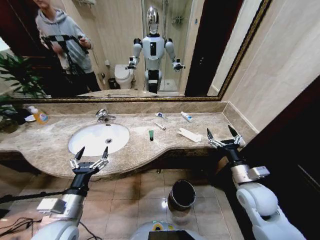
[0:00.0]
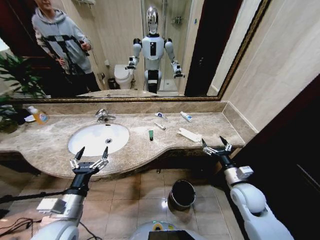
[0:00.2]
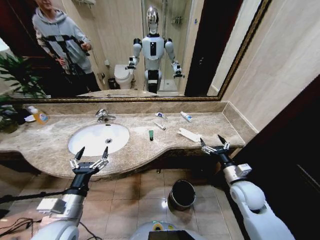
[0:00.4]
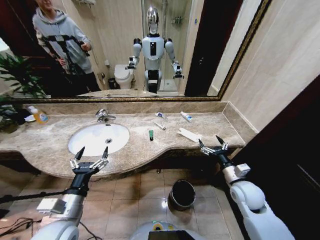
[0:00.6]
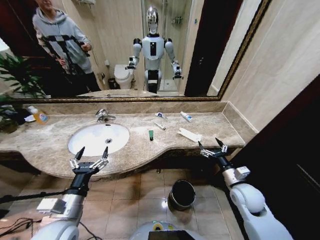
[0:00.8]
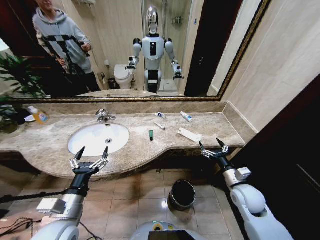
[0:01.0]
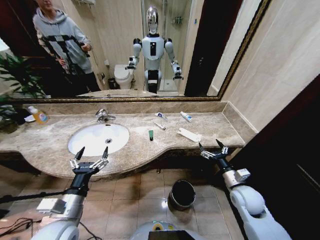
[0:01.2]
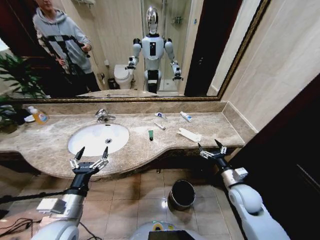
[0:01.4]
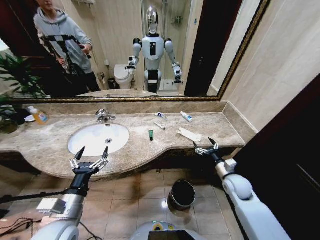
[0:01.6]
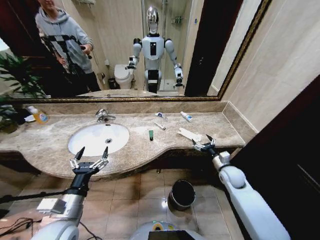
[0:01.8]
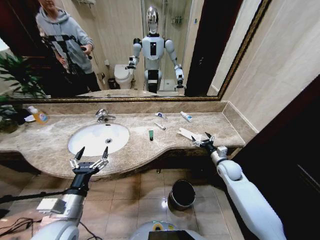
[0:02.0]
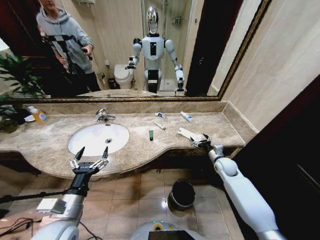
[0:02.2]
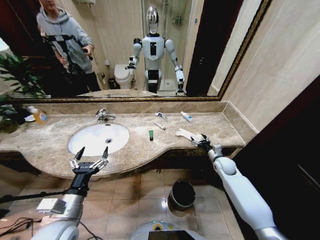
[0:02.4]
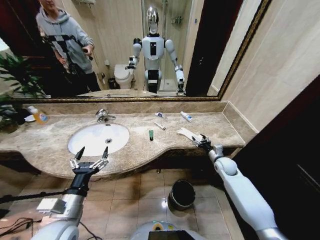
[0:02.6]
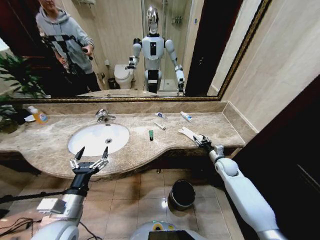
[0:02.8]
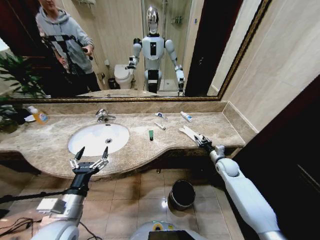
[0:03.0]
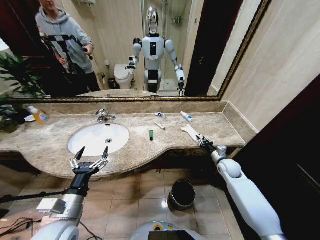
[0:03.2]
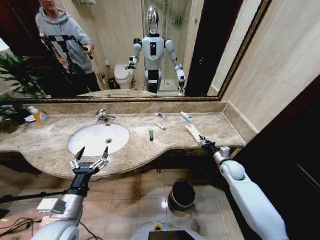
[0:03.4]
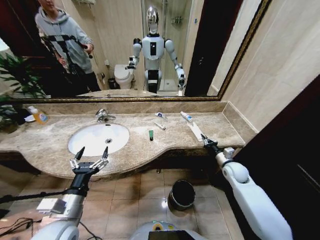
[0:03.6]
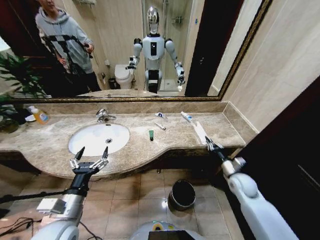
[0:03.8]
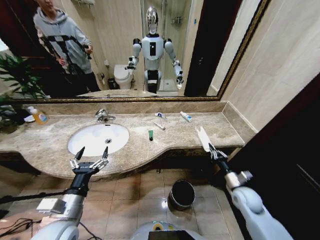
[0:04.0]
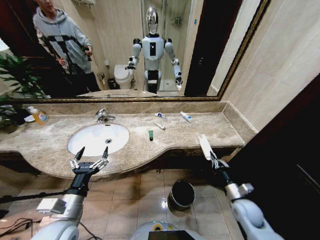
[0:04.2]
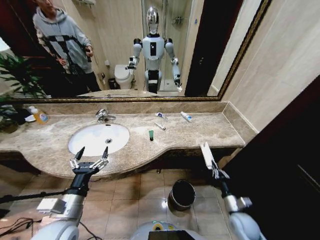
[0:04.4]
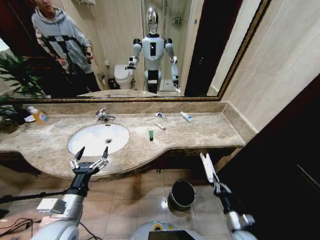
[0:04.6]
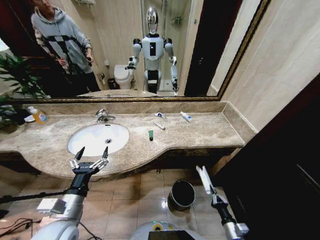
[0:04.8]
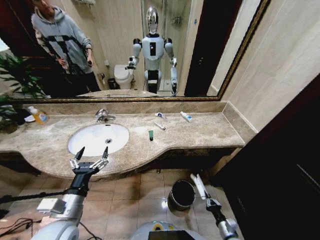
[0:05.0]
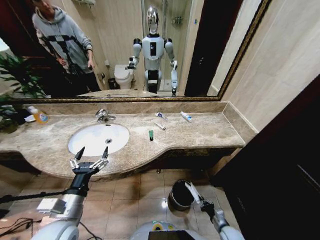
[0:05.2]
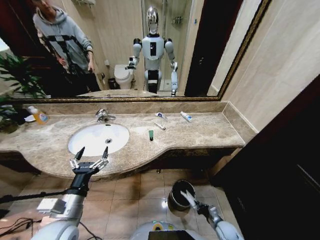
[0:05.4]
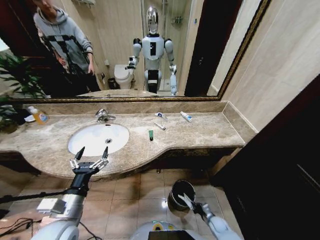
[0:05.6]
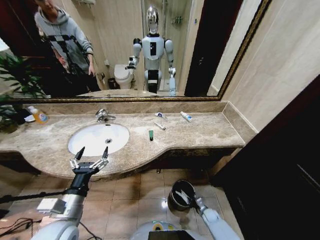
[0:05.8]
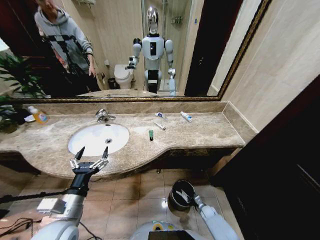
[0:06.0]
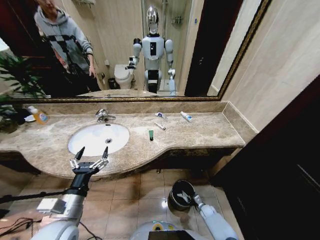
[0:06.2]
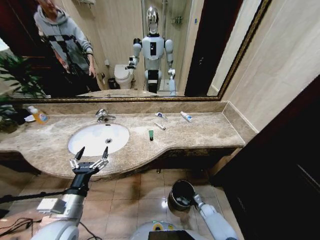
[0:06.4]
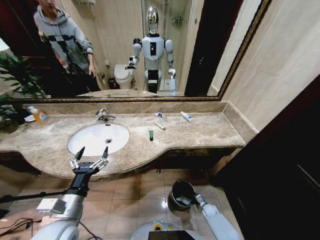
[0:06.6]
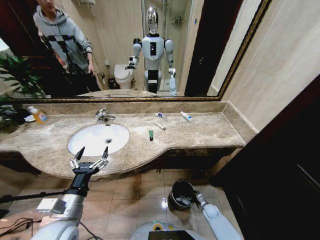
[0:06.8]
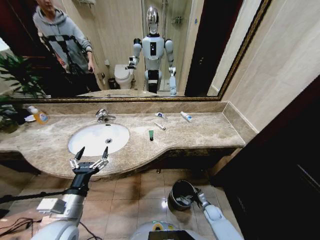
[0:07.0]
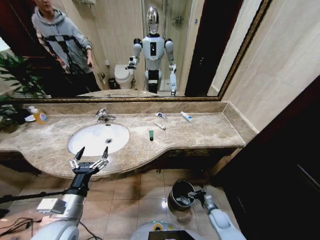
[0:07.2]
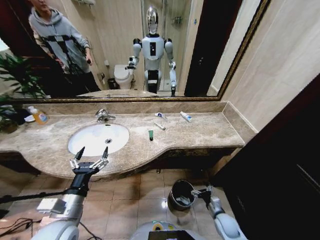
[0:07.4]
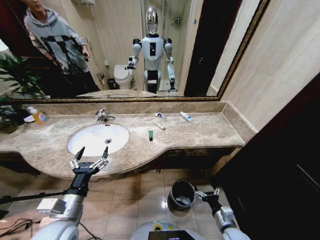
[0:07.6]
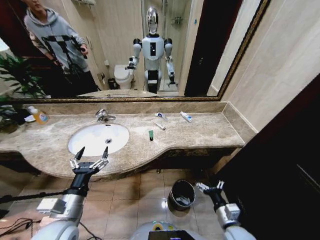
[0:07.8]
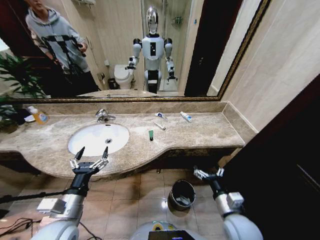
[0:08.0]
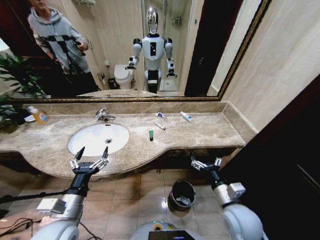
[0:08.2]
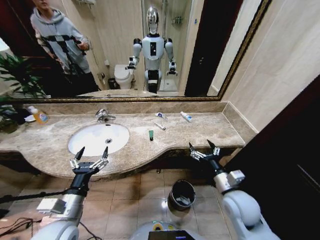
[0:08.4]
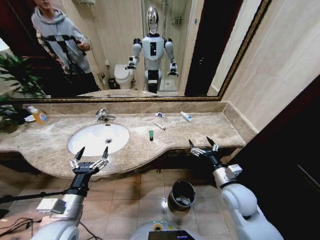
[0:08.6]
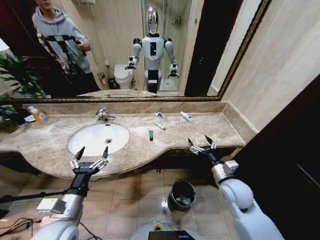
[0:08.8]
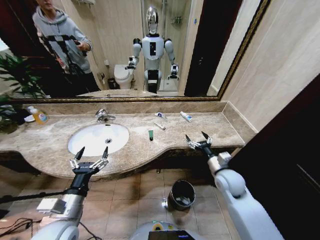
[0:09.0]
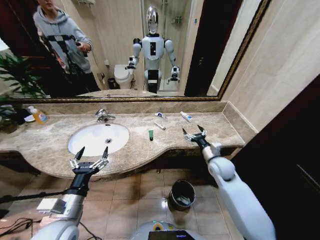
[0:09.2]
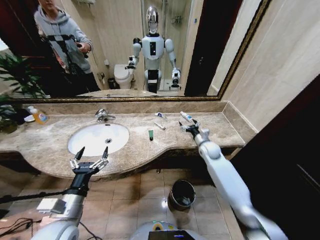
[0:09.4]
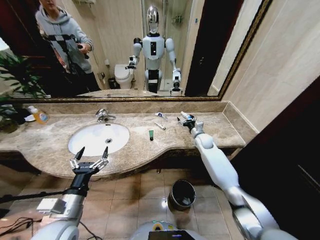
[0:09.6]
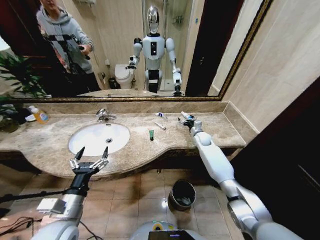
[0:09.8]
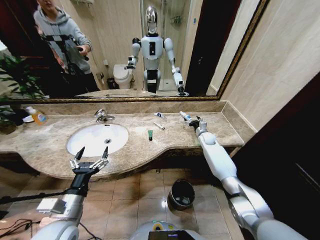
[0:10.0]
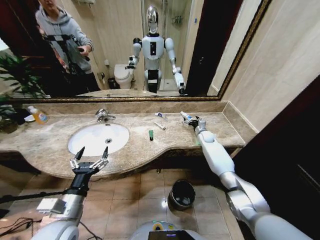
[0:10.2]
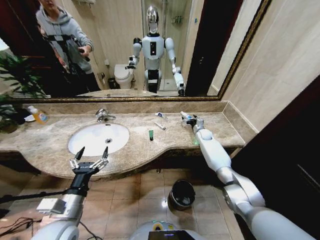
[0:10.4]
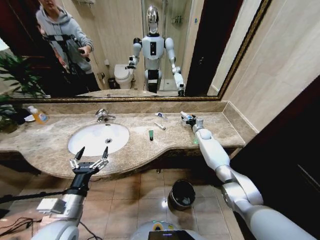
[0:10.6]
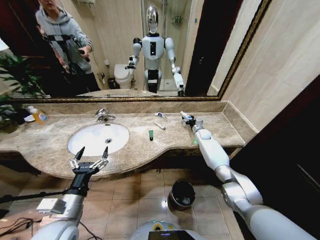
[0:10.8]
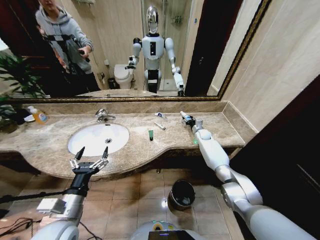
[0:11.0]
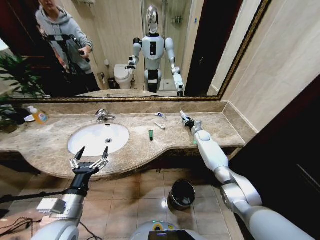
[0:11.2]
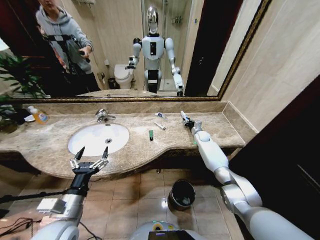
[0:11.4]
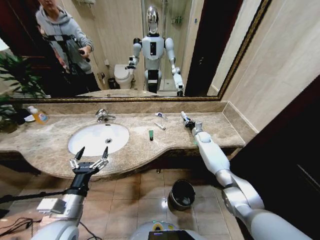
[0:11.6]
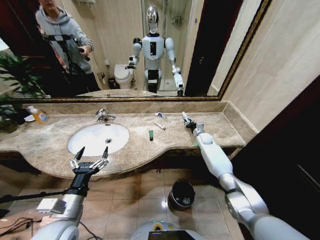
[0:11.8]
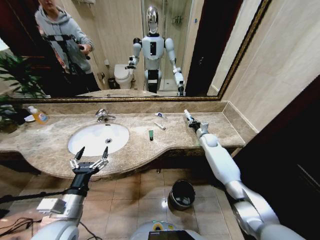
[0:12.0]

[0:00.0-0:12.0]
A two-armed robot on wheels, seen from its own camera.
Task of the whole recording: Pick up the trash from the sink and place it in the trash bin.
0:01.6 to 0:03.0: The right gripper travels forward by about 10 cm, and closes.
0:03.0 to 0:04.4: The right gripper goes approximately 20 cm backward, and closes its fingers.
0:04.4 to 0:06.0: The right gripper goes some 25 cm downward.
0:06.0 to 0:07.6: The right gripper goes about 25 cm upward and backward, and opens up.
0:07.6 to 0:09.0: The right gripper heads upward and forward, covering approximately 25 cm.
0:09.0 to 0:10.4: The right gripper shifts roughly 30 cm forward.
0:10.4 to 0:12.0: The right gripper shifts roughly 5 cm backward, and closes up.

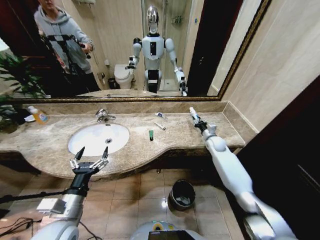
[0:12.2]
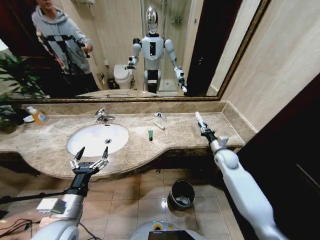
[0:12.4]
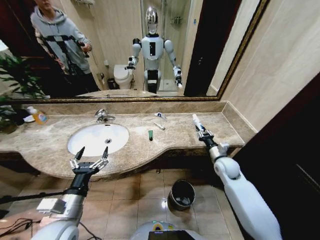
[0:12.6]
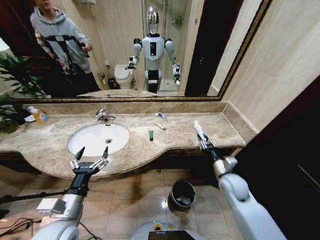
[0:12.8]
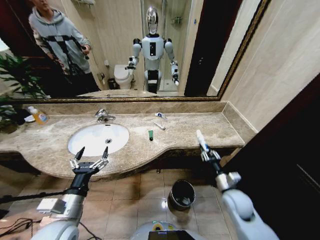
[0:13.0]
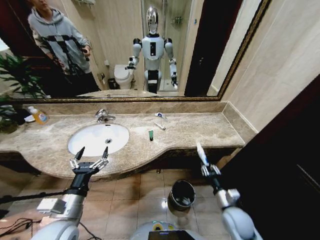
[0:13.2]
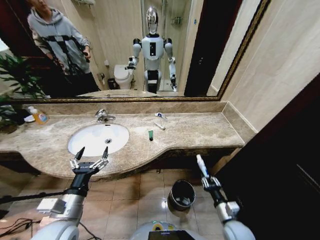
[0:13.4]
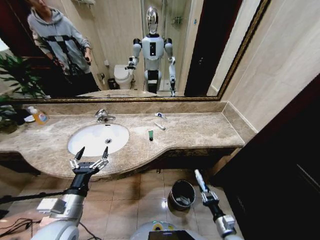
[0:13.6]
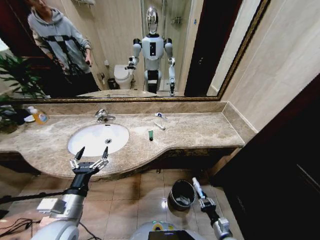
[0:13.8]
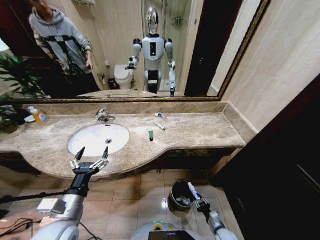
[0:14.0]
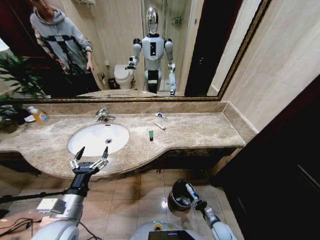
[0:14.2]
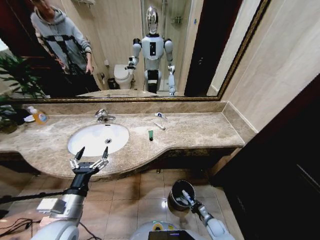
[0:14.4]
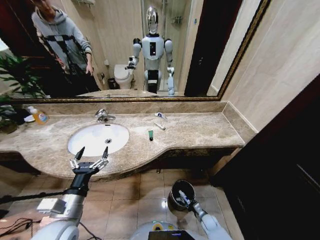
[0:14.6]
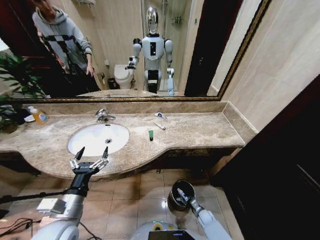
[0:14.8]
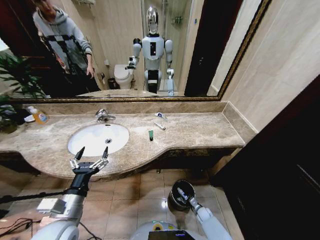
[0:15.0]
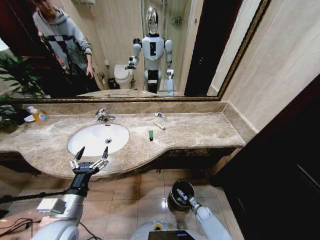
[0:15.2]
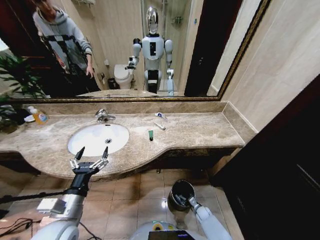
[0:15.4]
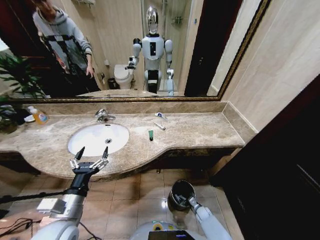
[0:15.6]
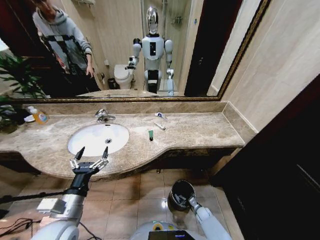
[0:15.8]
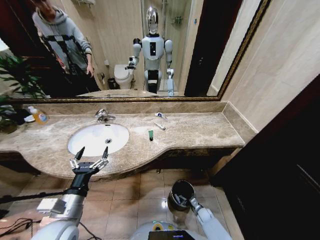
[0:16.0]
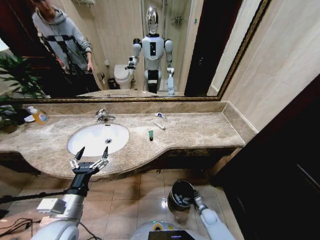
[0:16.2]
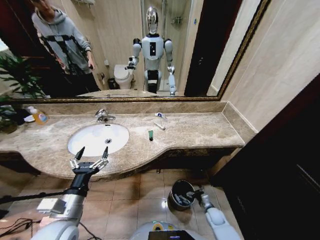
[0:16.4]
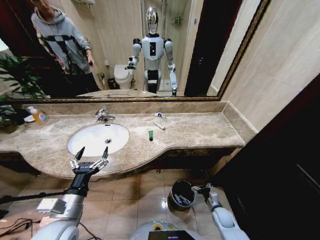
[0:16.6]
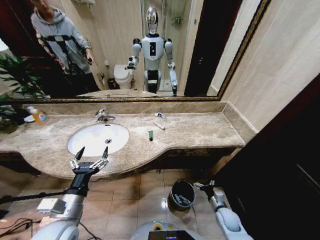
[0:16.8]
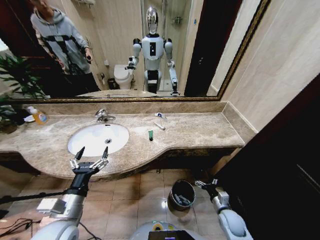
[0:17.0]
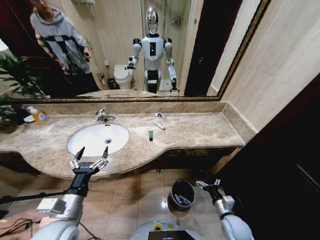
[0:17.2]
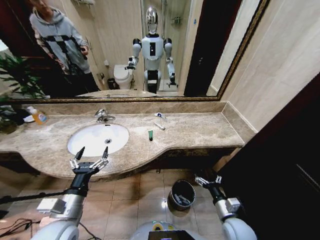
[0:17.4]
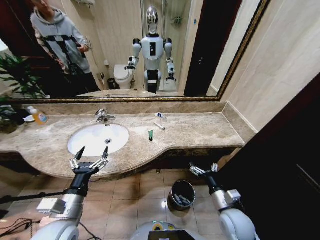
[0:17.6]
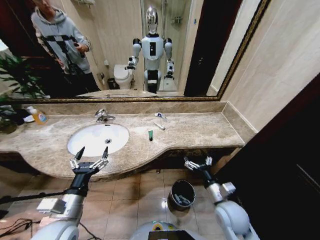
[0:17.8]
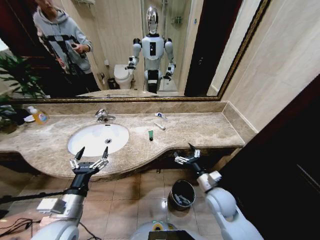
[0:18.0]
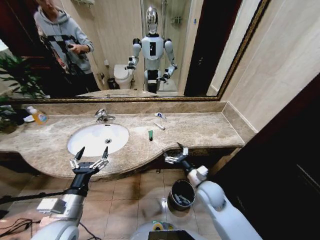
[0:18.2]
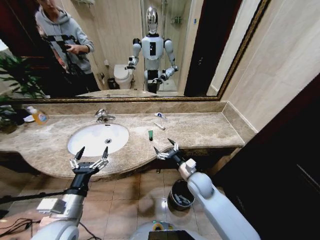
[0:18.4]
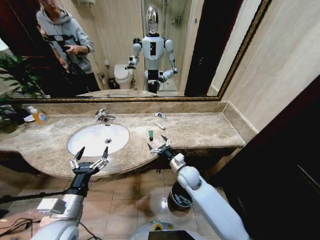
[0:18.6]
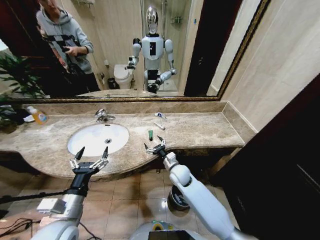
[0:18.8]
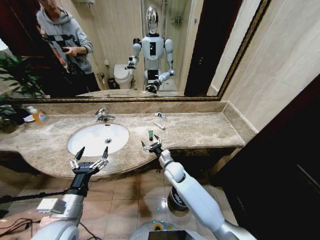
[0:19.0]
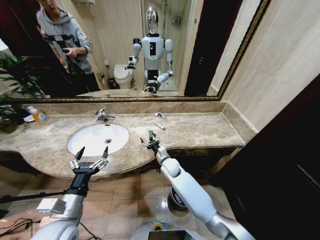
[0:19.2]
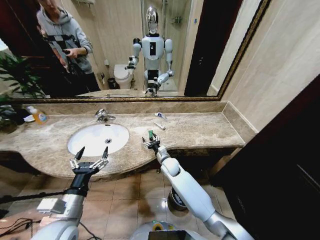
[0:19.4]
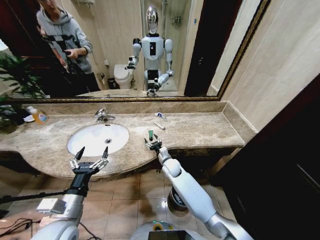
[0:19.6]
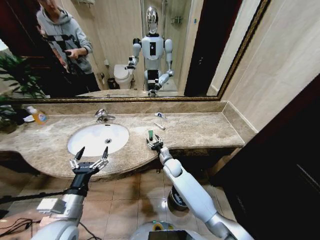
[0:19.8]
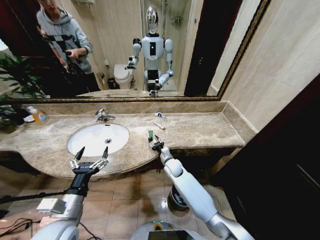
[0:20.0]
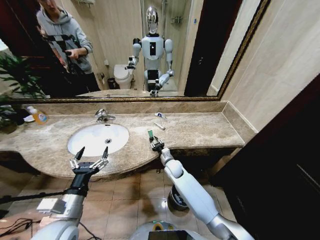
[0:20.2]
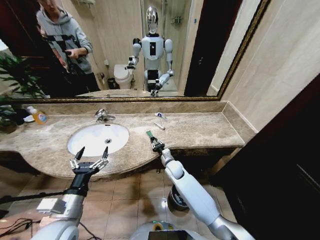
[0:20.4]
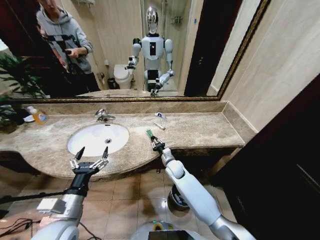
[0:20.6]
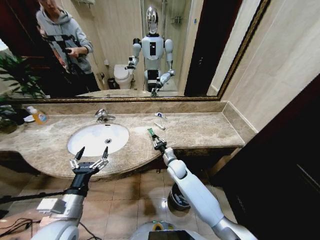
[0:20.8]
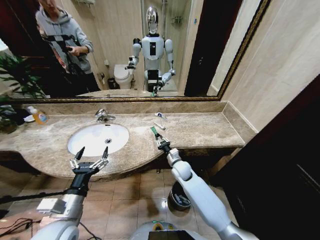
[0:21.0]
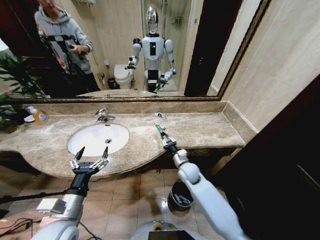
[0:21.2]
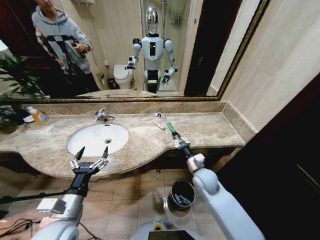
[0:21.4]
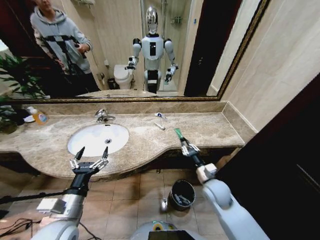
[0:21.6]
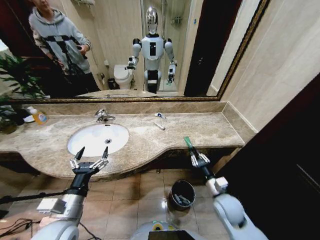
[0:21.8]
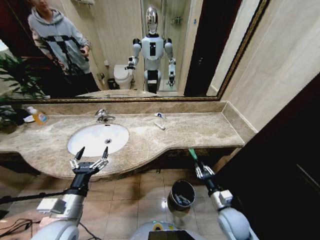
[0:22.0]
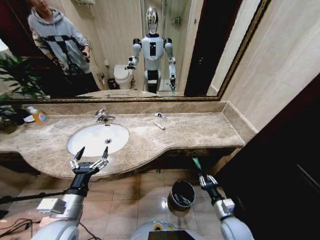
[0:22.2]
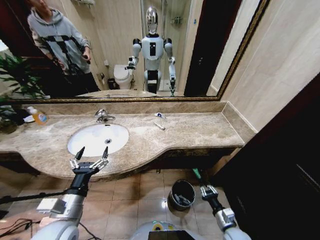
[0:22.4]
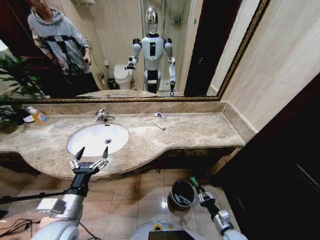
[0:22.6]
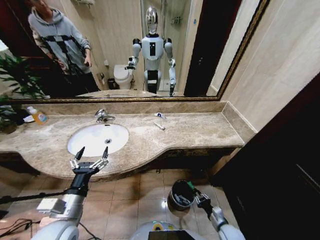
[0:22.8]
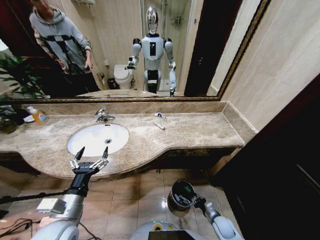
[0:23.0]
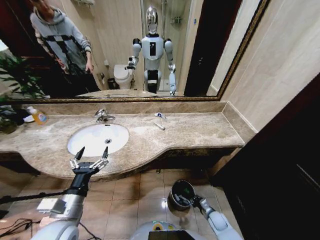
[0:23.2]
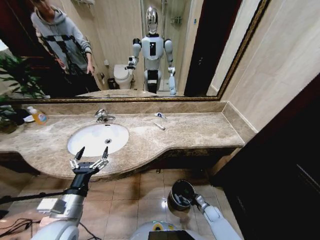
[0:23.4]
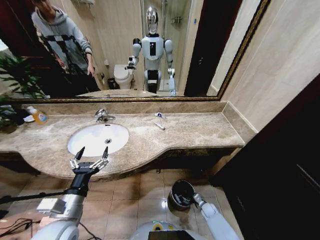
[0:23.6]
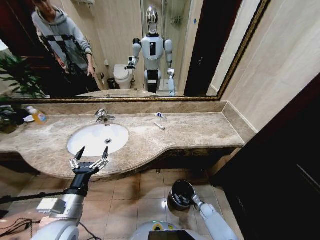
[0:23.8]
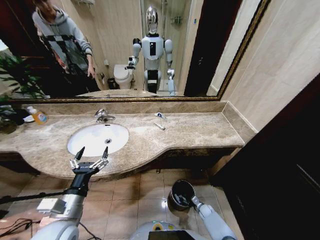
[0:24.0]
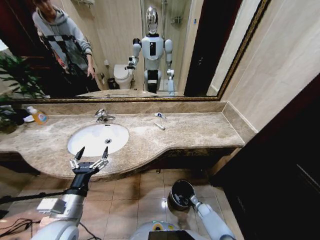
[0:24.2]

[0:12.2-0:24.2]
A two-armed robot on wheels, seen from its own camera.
Task of the whole recording: Pick up the trash from the sink and place it in the trash bin.
0:12.2 to 0:13.8: The right gripper heads backward and downward, covering roughly 50 cm.
0:13.8 to 0:15.2: The right gripper travels forward and downward by some 20 cm.
0:15.2 to 0:16.6: The right gripper is displaced upward by roughly 15 cm, and opens its fingers.
0:16.6 to 0:18.2: The right gripper heads upward and to the left, covering approximately 25 cm.
0:18.2 to 0:19.8: The right gripper moves forward and to the left, roughly 20 cm.
0:19.8 to 0:21.2: The right gripper moves to the right and backward, some 10 cm, and closes up.
0:21.2 to 0:22.6: The right gripper moves backward, to the right and downward, roughly 30 cm.
0:22.6 to 0:24.2: The right gripper shifts some 25 cm downward and forward.
